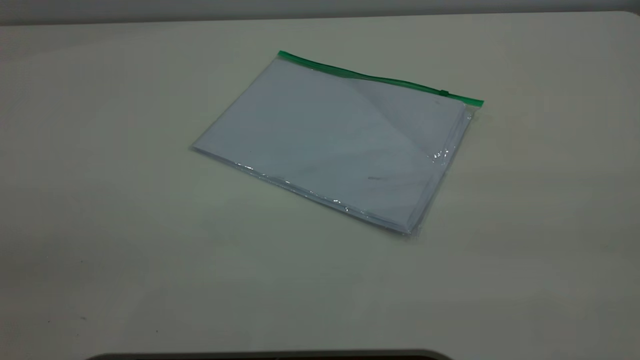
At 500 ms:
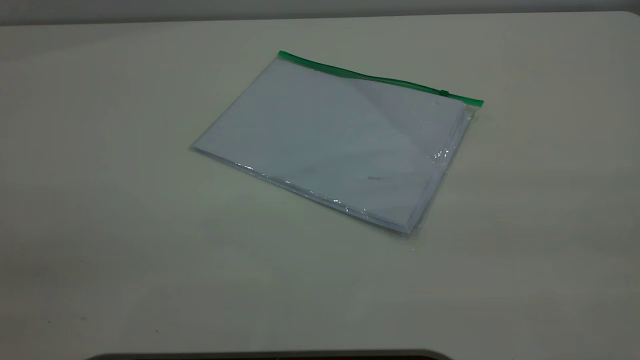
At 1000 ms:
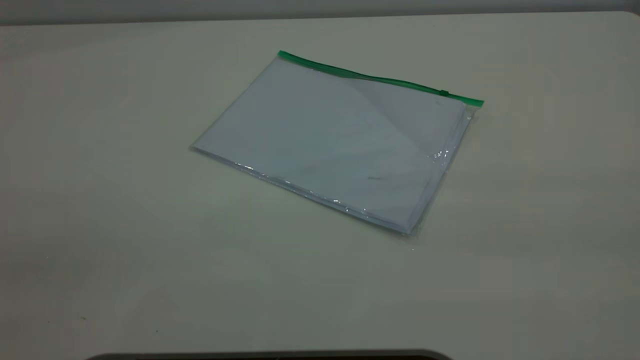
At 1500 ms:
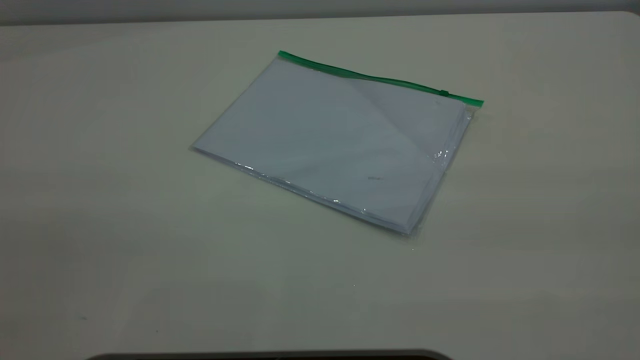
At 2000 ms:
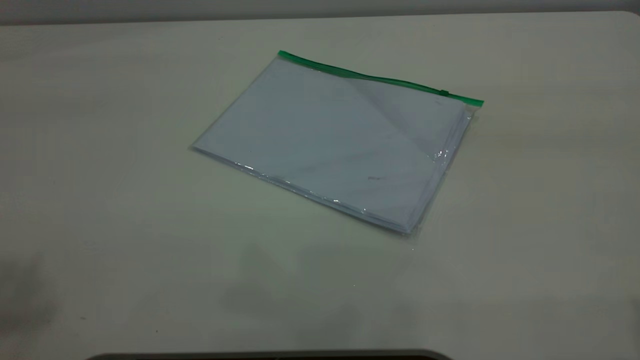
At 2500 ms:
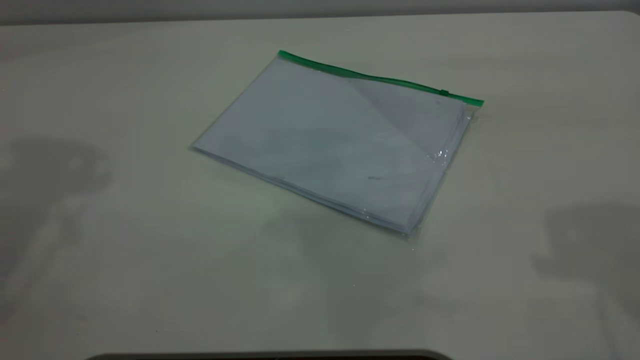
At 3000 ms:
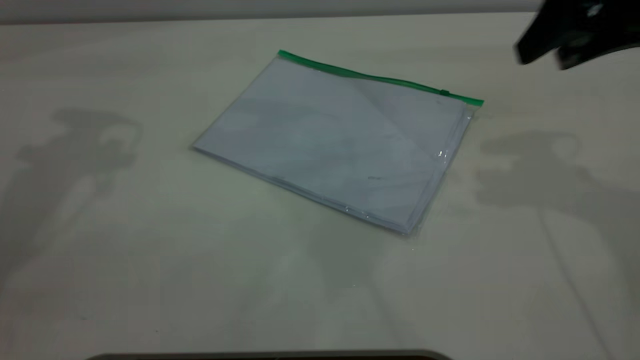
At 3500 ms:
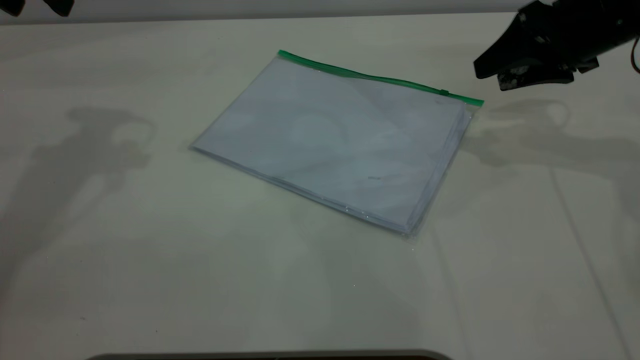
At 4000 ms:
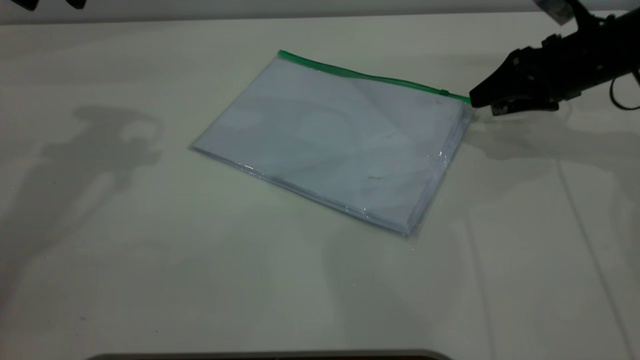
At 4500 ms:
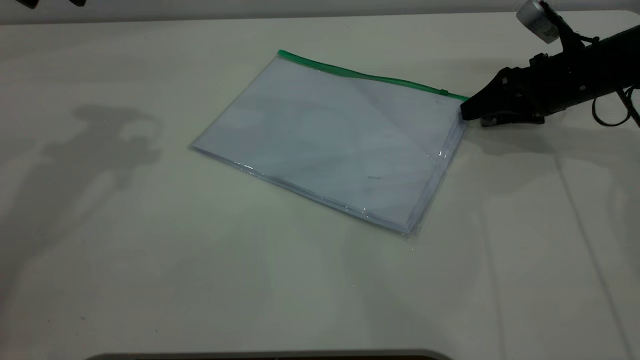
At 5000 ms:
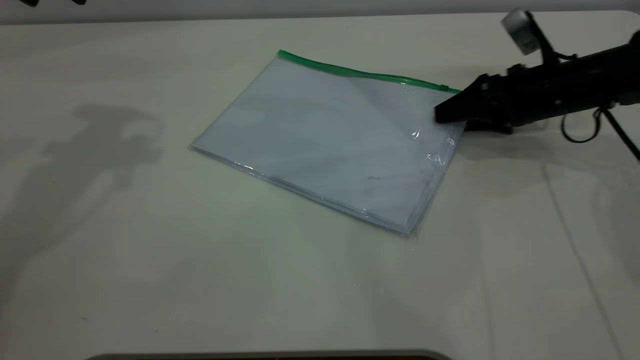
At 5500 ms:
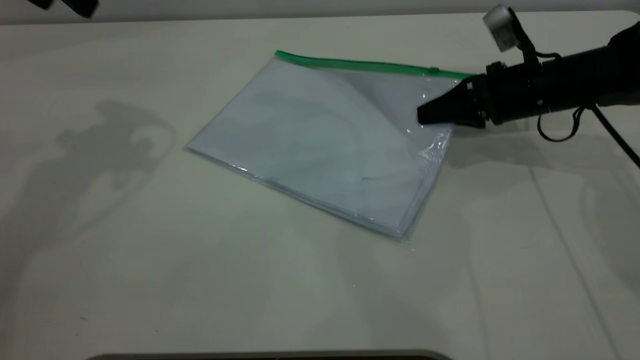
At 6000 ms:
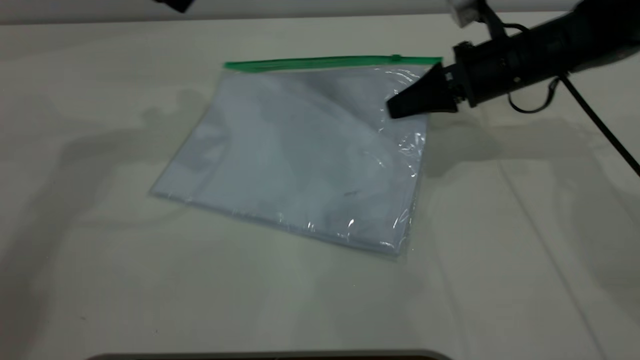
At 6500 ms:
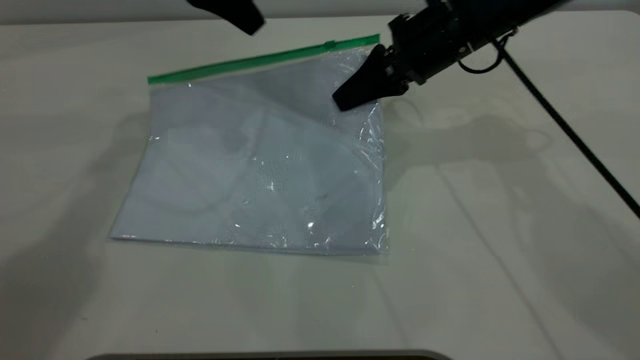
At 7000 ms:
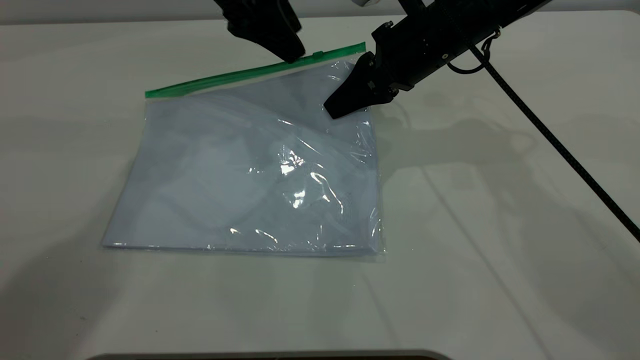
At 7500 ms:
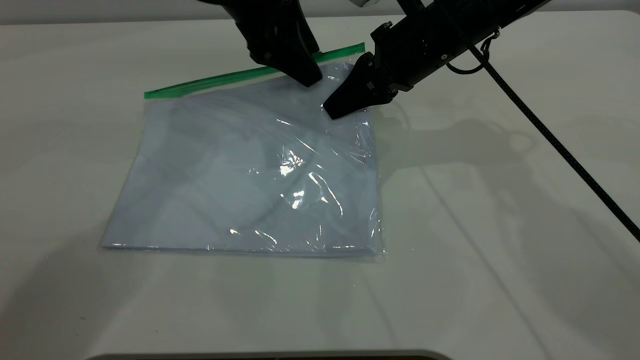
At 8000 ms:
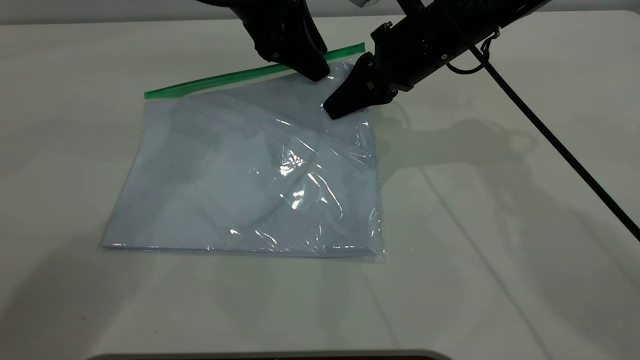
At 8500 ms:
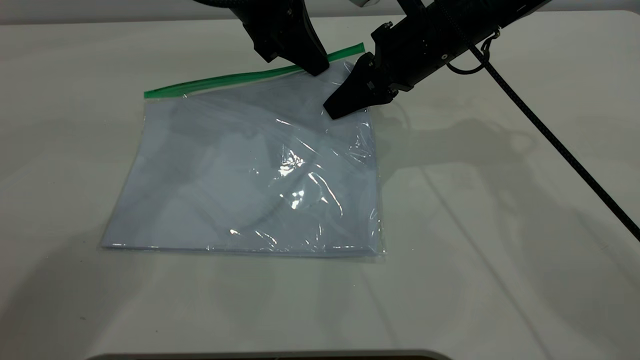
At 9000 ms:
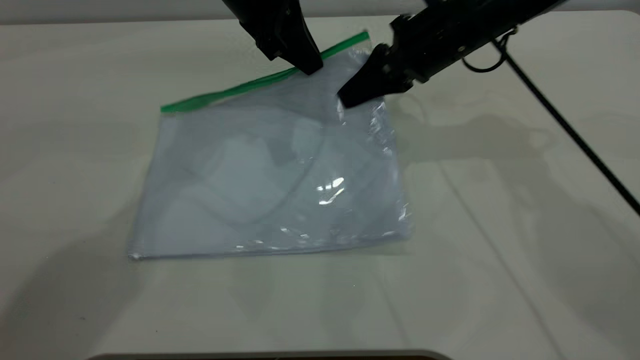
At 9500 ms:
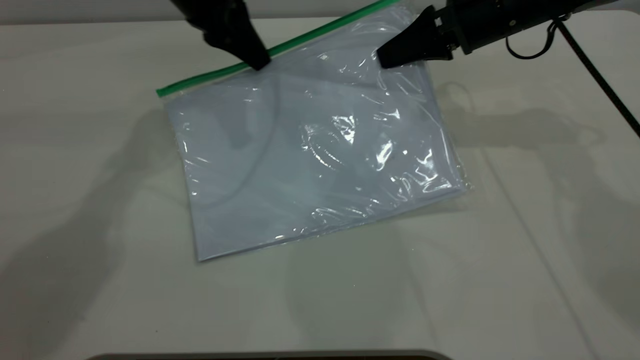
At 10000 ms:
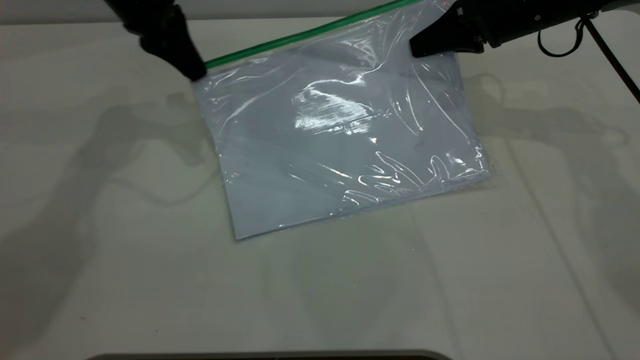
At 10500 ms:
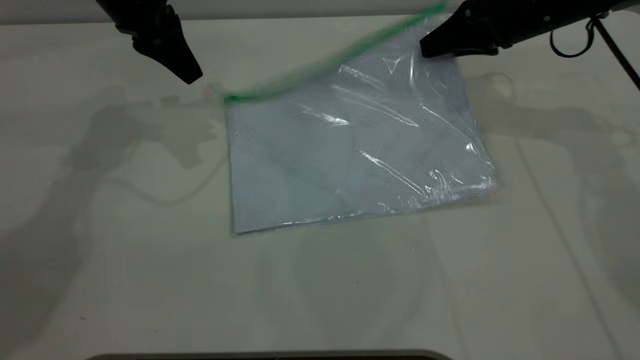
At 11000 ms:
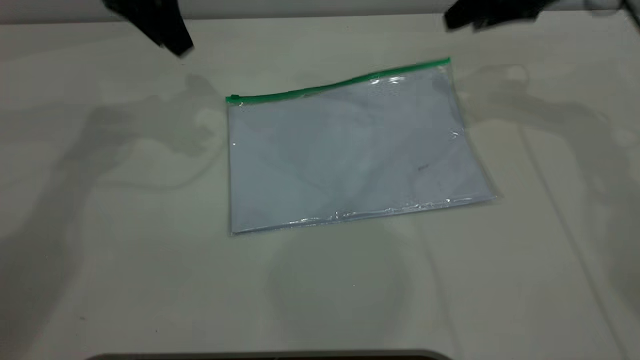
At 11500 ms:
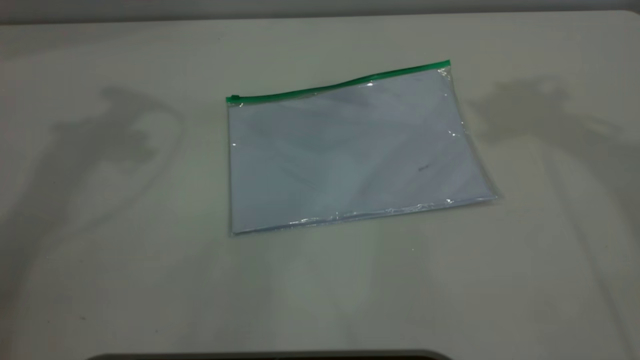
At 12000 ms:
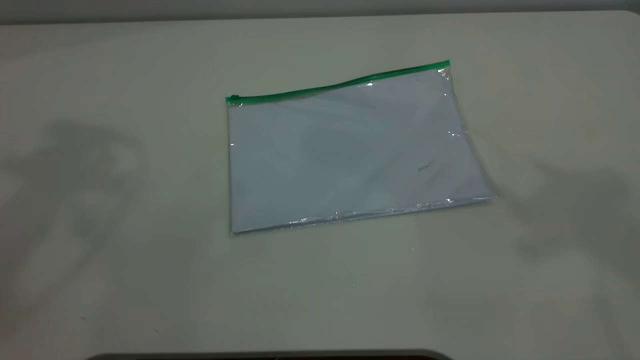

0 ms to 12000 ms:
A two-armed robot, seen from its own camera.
Step, 0 ms to 6000 ms: Pick up the transparent plastic bag with the right gripper.
Step, 6500 ms to 10000 ms: Pulling up the zipper on the transparent plastic bag with the left gripper to close it.
Step, 10500 ms to 11500 ms: Place the transparent plastic bag.
2000 ms to 4000 ms: The right gripper is displaced downward and forward by roughly 50 cm.
4000 ms to 6000 ms: The left gripper is displaced to the right by some 5 cm. Meanwhile the right gripper moves to the left, roughly 10 cm, and closes up.
6000 ms to 8000 ms: The right gripper is displaced to the left by roughly 10 cm; the left gripper moves to the right and downward, about 15 cm.
8000 ms to 10000 ms: The left gripper travels to the left by some 10 cm, and closes up. The right gripper heads to the right, covering about 10 cm.
10000 ms to 12000 ms: Both grippers move upward and backward, roughly 40 cm. The right gripper opens, while the left gripper opens its fingers.
